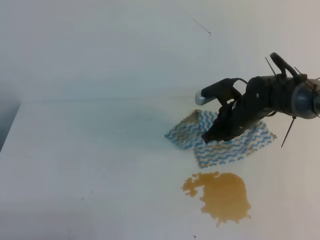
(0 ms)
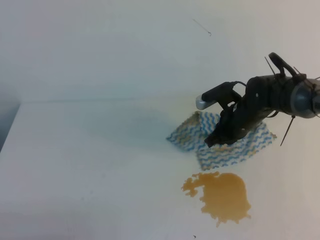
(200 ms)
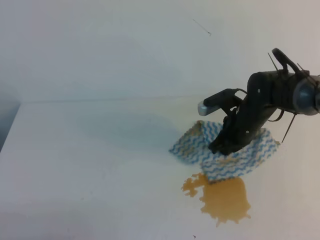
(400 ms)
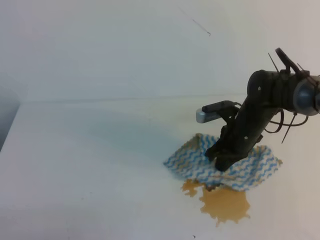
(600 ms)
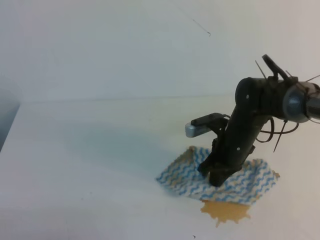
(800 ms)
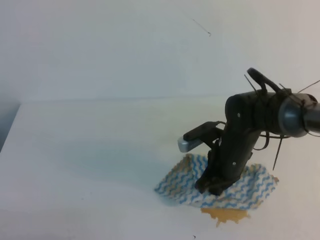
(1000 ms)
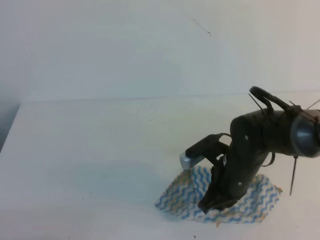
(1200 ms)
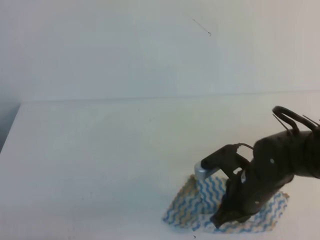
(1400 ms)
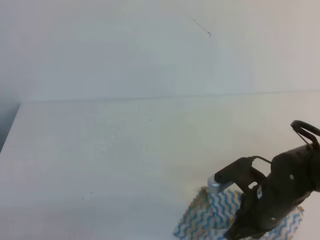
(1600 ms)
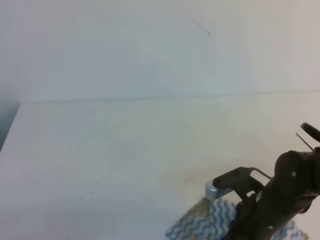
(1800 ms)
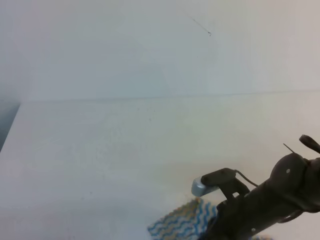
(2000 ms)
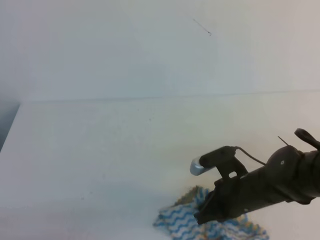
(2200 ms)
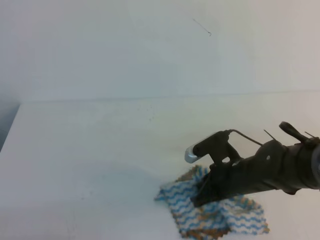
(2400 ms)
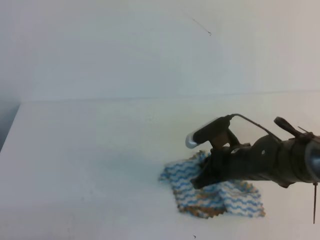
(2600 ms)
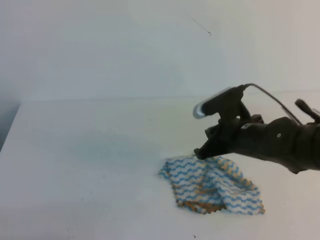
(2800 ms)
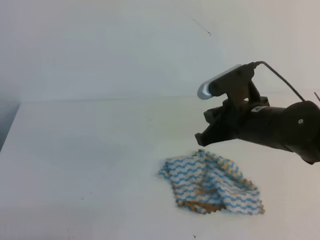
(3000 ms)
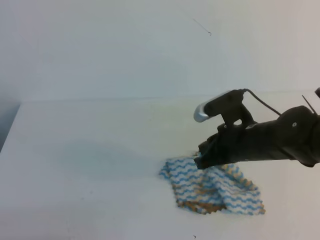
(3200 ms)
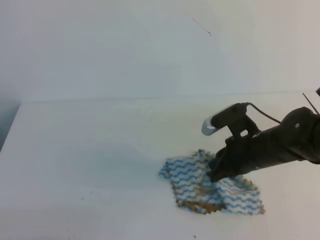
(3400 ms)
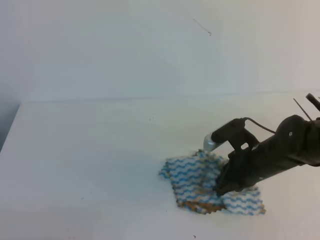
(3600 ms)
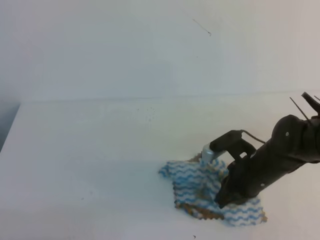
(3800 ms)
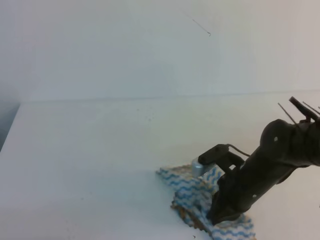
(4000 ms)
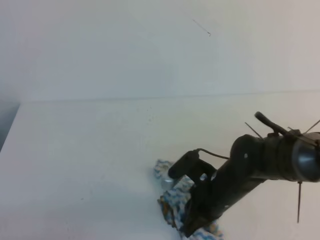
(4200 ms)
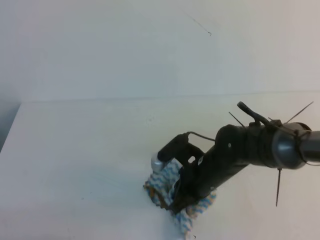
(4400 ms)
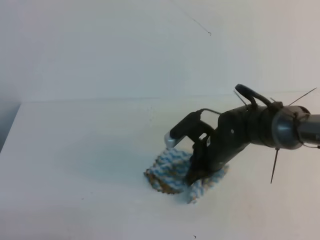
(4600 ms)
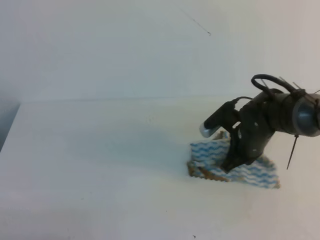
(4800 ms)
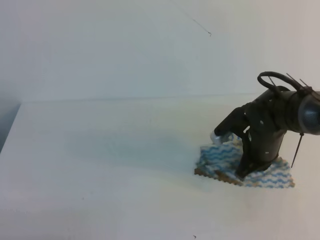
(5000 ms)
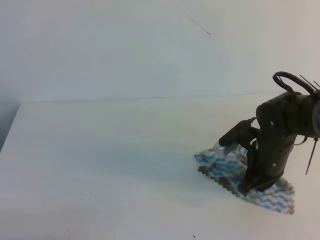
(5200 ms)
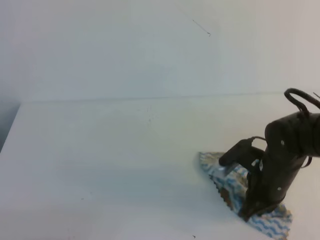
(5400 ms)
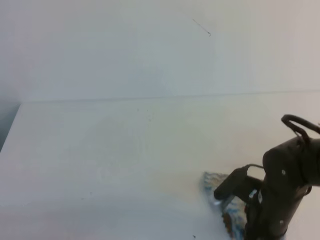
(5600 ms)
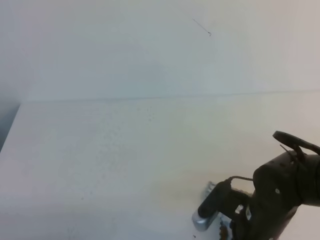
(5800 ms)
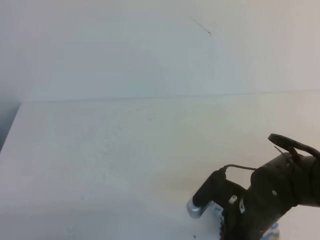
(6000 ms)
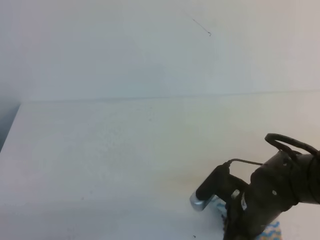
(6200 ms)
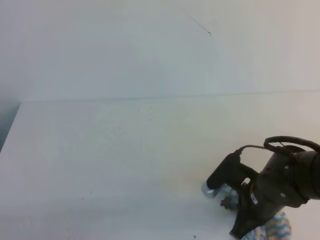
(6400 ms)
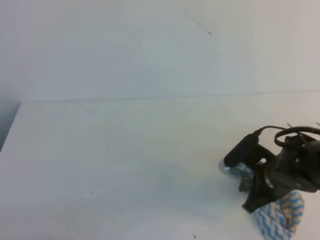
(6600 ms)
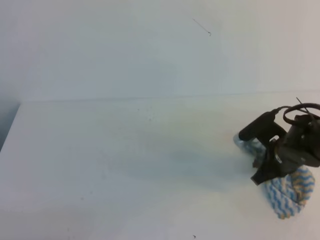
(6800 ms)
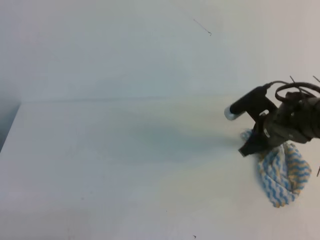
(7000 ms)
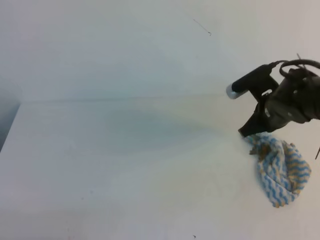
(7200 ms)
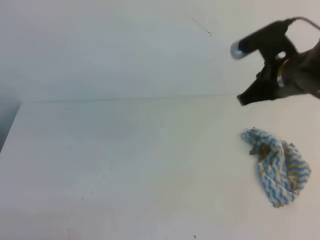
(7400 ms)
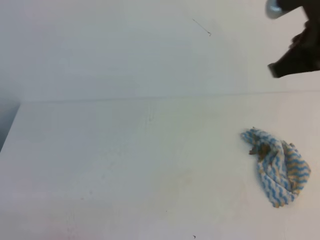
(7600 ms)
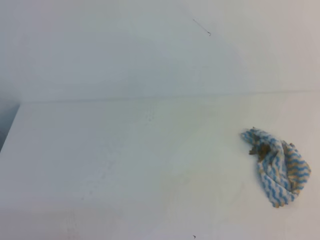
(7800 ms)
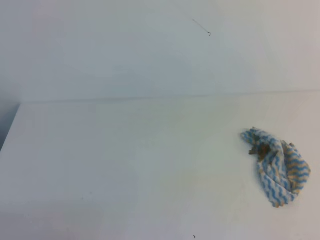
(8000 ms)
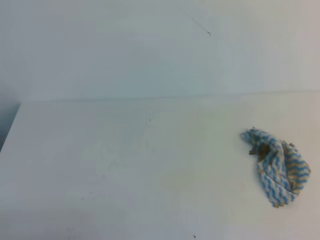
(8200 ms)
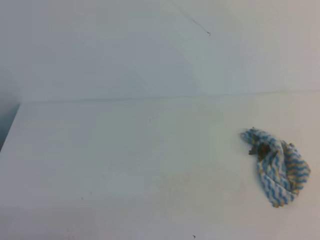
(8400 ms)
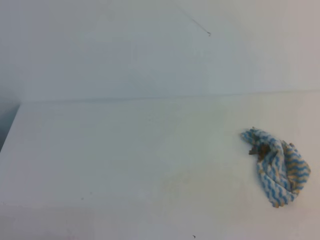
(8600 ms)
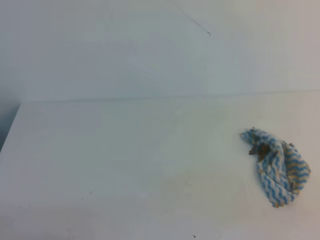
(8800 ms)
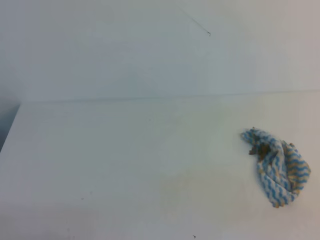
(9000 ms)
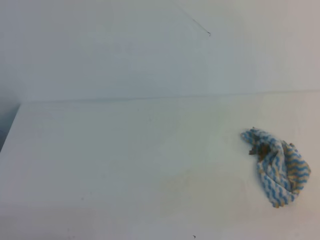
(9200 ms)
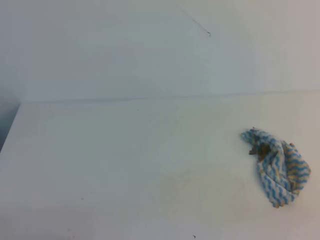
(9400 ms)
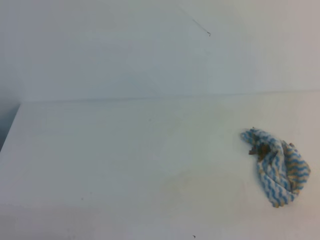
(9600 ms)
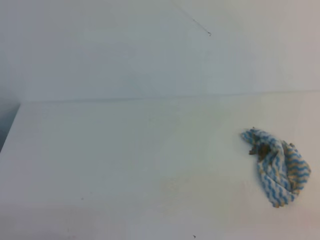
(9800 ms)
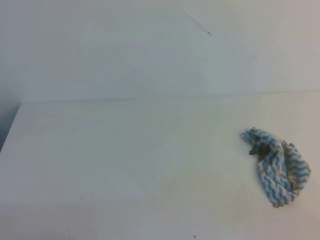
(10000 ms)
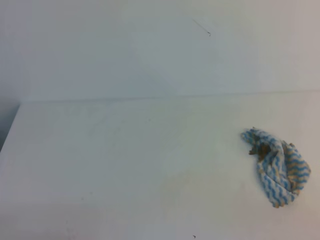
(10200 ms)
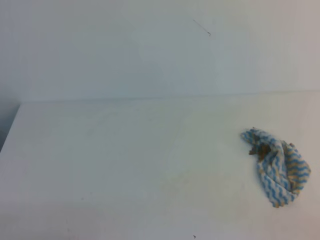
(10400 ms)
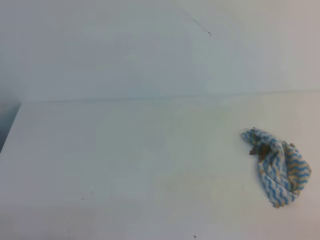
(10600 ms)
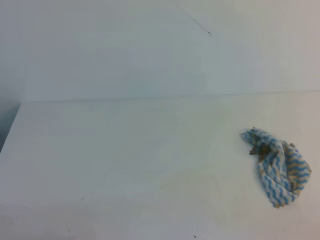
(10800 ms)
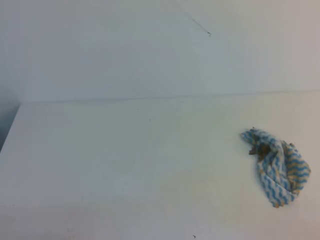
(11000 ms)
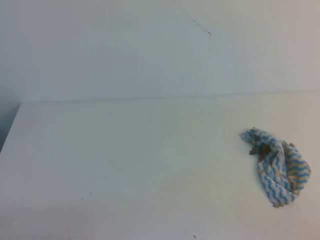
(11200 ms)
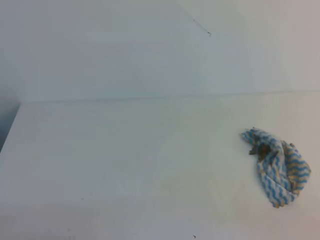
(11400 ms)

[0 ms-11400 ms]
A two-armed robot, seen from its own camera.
0 ms to 1400 ms: The right gripper moves backward, approximately 15 cm.
1400 ms to 2800 ms: The right gripper is displaced forward and upward by roughly 10 cm.
2800 ms to 4200 ms: The right gripper travels downward by approximately 5 cm, and opens, then closes once more.
4200 ms to 5600 ms: The right gripper travels to the right by about 5 cm, and goes forward and returns, about 10 cm each way.
5600 ms to 7200 ms: The right gripper goes roughly 15 cm forward and upward.
7200 ms to 8600 ms: The right gripper is displaced backward and to the right by some 40 cm.

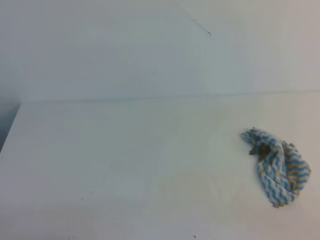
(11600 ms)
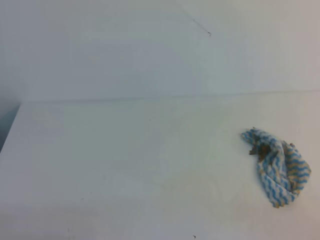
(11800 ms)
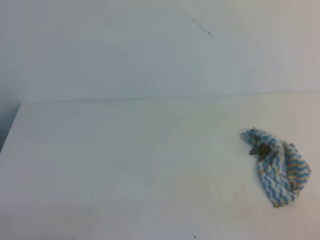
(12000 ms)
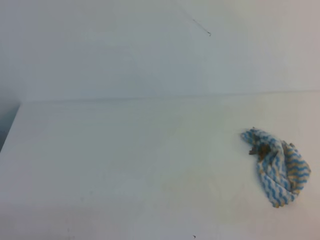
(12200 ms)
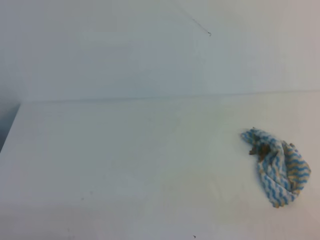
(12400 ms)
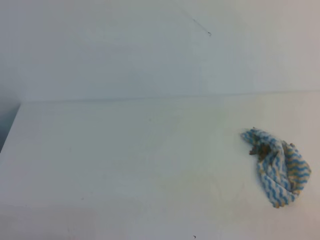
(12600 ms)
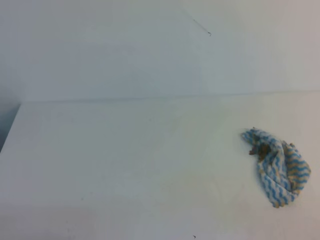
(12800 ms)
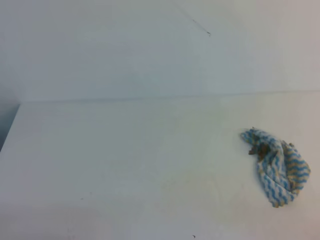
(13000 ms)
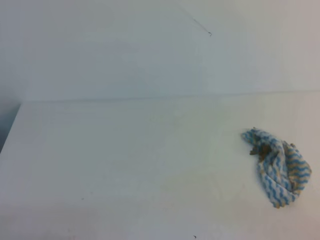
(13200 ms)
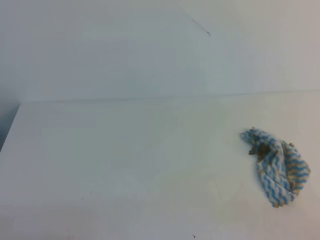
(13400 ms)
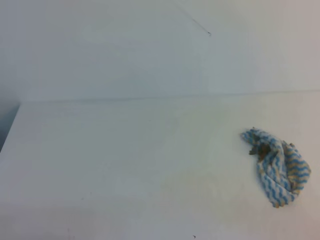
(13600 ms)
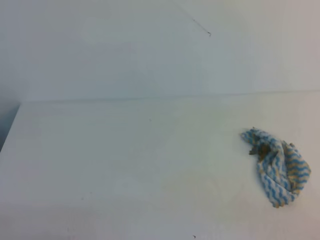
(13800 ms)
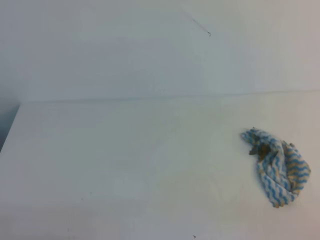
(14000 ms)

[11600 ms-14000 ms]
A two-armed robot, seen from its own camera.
12800 ms to 14000 ms: Neither gripper changes place.
